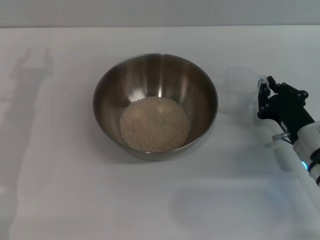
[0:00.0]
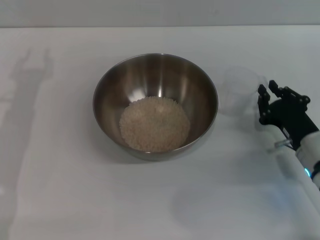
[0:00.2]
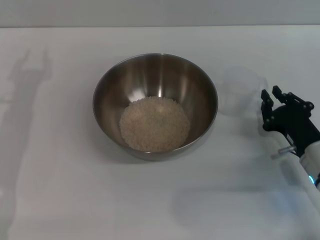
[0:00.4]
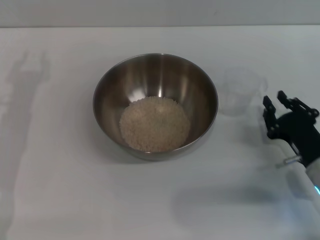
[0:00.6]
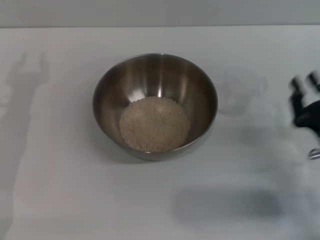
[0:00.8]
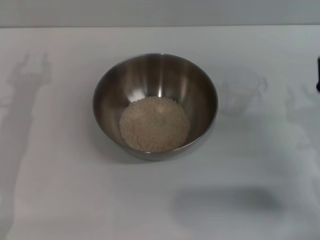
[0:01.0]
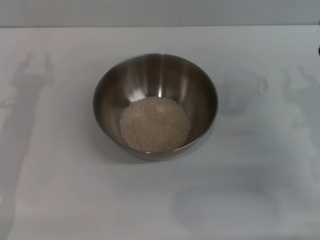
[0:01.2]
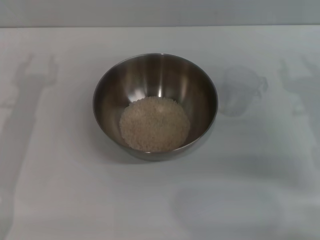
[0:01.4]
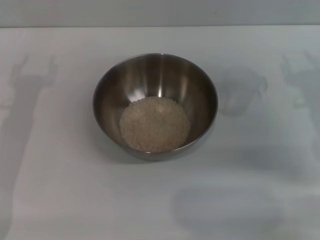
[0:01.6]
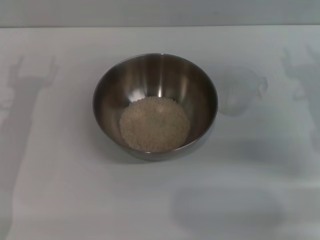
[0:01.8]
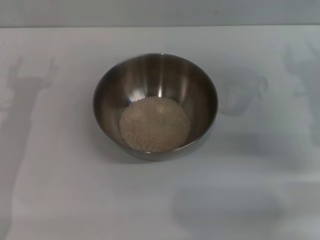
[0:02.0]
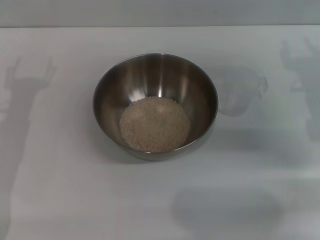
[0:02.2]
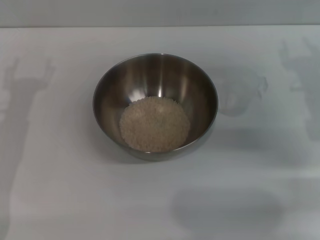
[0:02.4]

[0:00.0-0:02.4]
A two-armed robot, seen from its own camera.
Task of the whole recording: Place the bowl in the middle of the table with one hand and pour the rice from the grain cup into it with the other hand.
0:00.0 to 0:01.2: The right gripper is displaced upward by approximately 5 cm, and opens up.
0:01.2 to 0:02.4: The right gripper travels forward by some 5 cm, and opens its fingers.
